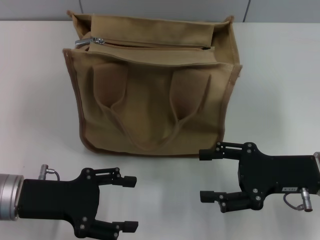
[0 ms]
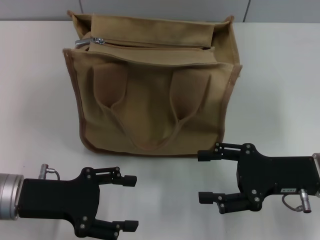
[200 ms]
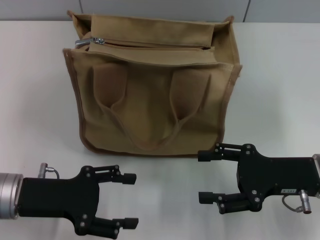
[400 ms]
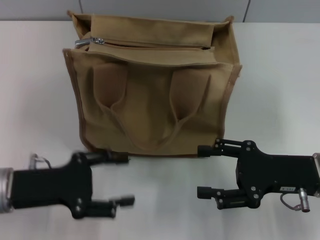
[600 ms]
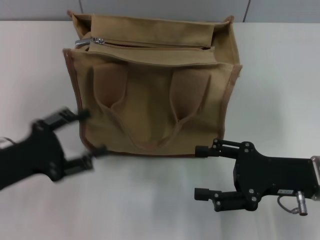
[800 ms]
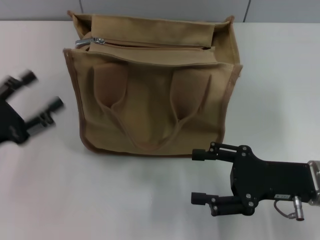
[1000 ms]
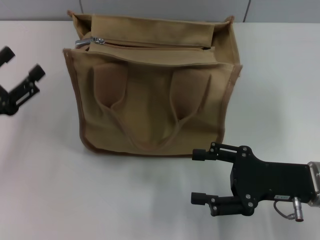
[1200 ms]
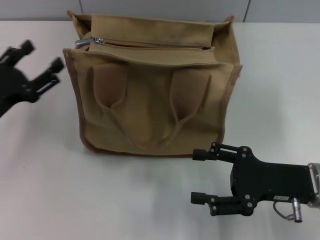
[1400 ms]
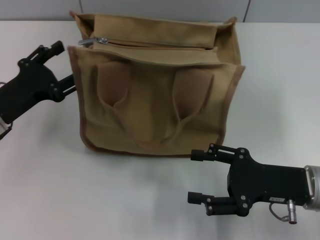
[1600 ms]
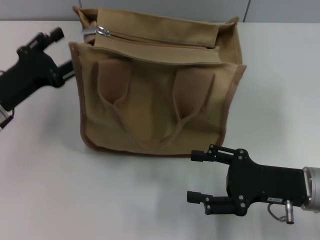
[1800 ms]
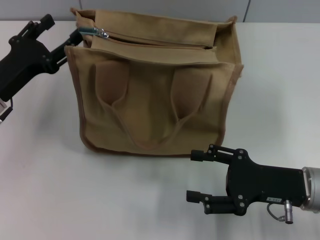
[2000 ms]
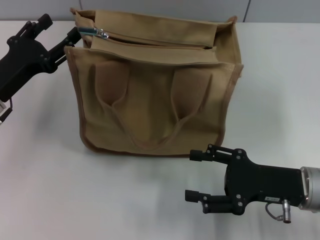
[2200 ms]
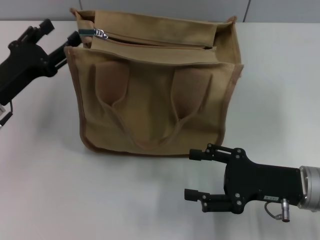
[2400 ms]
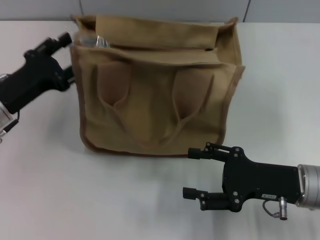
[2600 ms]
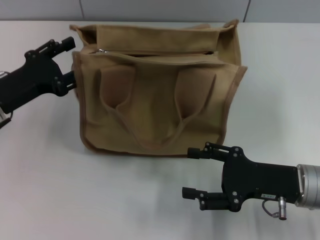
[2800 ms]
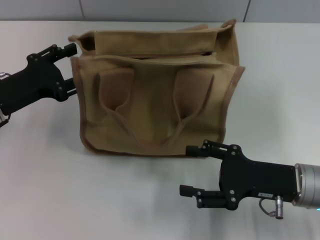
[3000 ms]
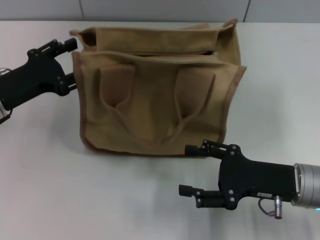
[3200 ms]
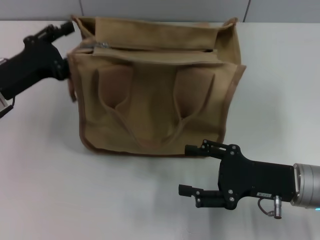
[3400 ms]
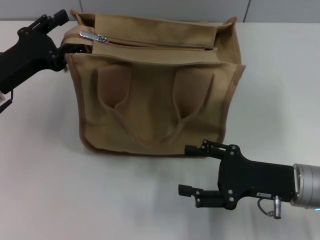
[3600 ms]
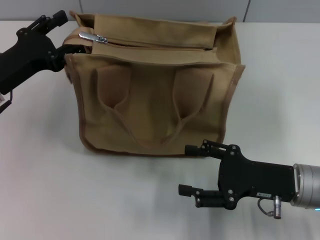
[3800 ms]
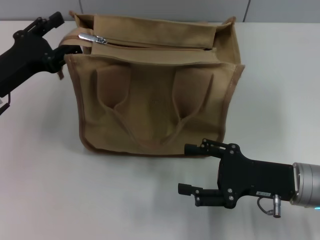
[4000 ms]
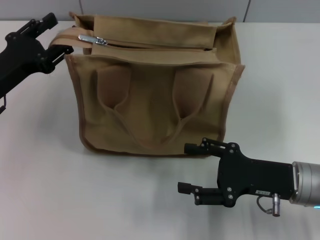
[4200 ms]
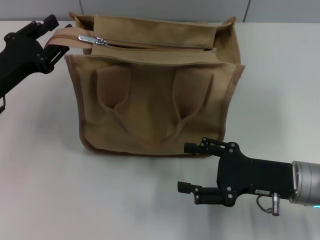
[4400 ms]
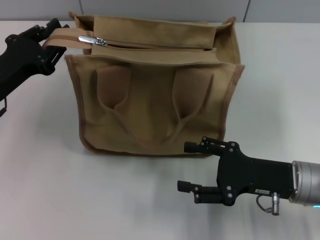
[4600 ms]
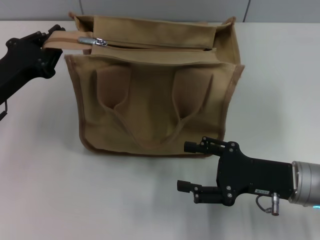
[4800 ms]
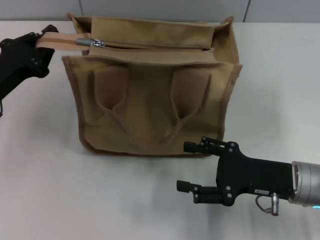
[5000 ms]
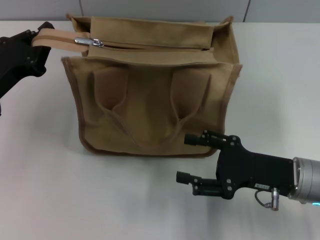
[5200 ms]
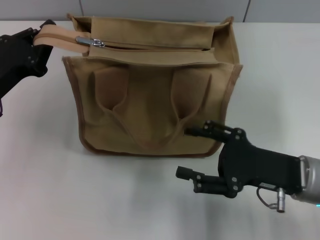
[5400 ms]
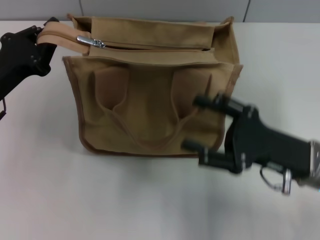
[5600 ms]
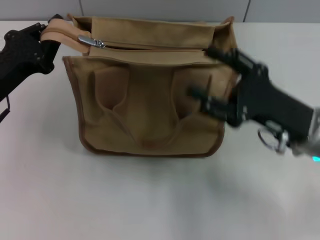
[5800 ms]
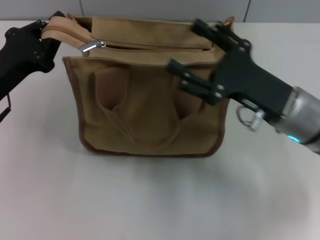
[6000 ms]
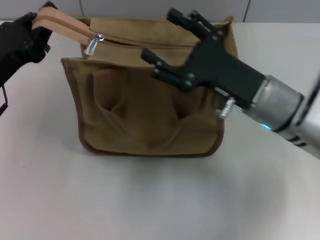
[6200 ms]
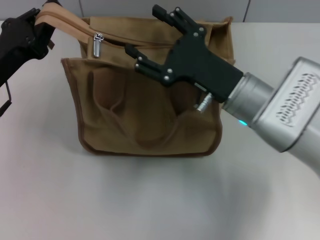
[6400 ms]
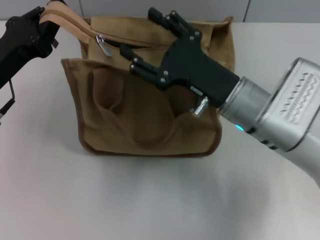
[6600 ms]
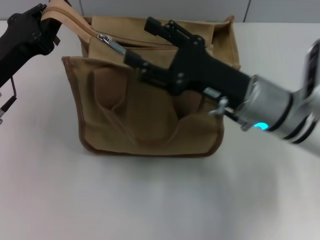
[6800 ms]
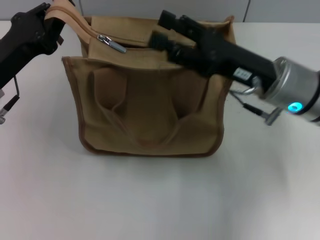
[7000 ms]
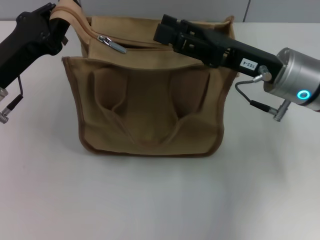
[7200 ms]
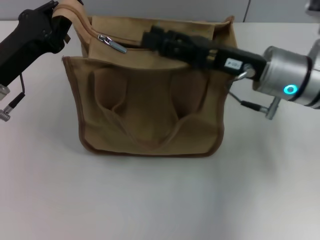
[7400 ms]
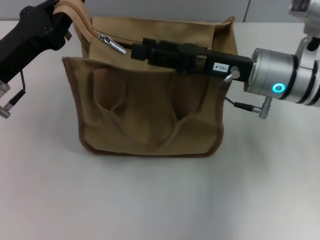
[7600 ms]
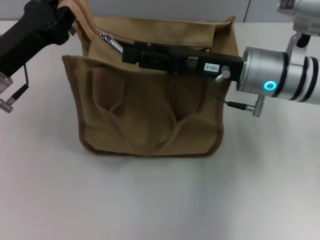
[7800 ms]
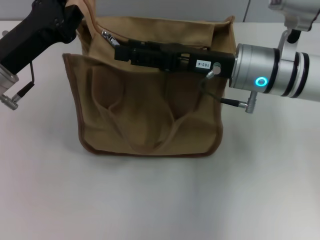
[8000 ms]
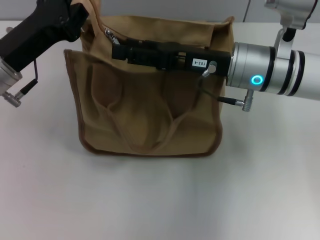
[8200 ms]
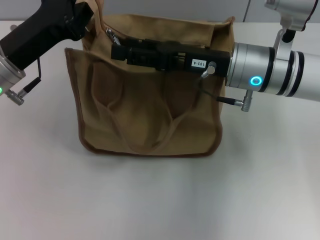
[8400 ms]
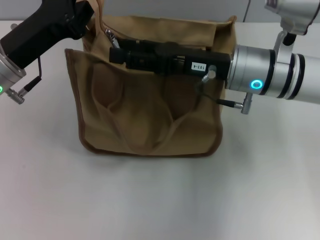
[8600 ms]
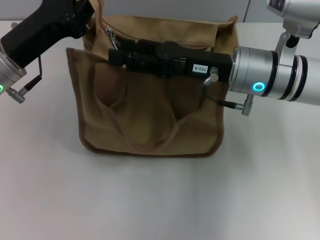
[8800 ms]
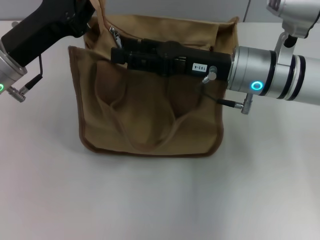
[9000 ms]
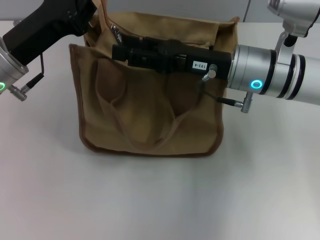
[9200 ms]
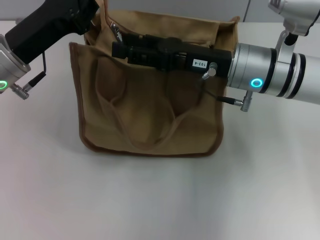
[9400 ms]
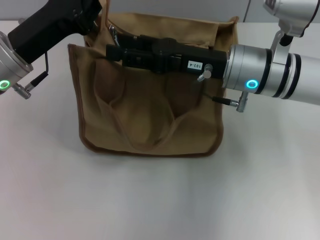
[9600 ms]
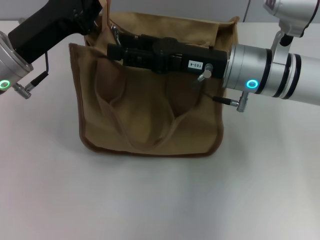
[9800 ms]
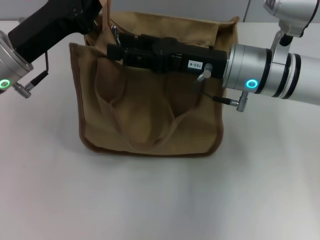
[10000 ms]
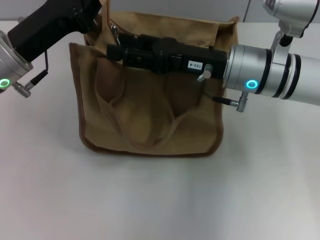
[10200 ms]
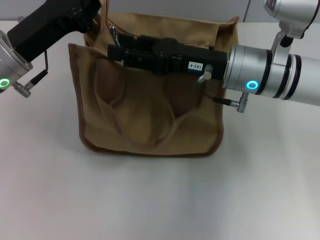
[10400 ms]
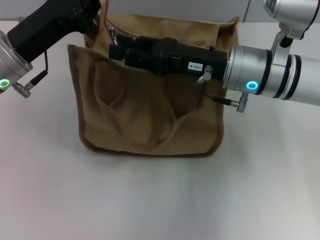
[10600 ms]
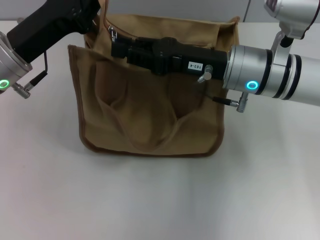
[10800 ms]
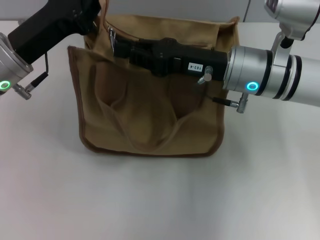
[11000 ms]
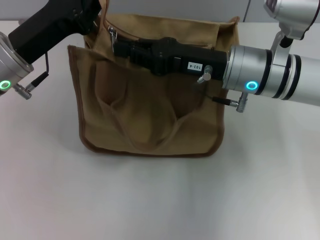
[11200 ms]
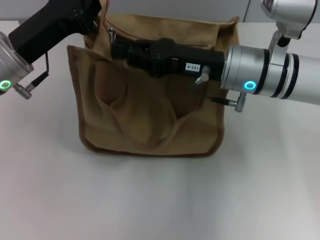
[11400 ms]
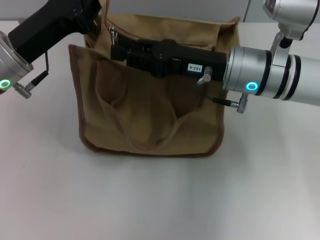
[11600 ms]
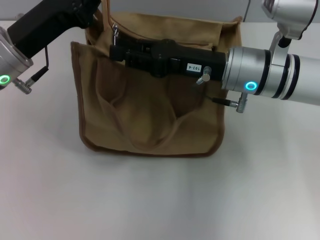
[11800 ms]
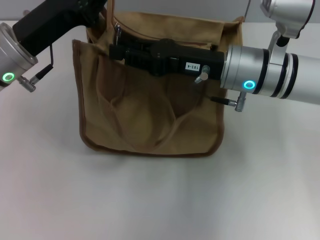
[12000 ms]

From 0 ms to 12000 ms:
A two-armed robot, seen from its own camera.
From 0 ms to 1600 ms: The left gripper shifts approximately 5 cm forward.
From 1600 ms to 4400 ms: There are only small adjustments of the grippers.
From 4400 ms to 6000 ms: The left gripper closes, while the right gripper shifts roughly 5 cm upward.
From 6000 ms to 7600 ms: The right gripper heads forward, covering some 5 cm.
From 7600 ms to 9000 ms: The grippers stay close to where they were, moving slightly.
From 9000 ms to 10400 ms: The two grippers keep their place.
From 10400 ms to 12000 ms: The right gripper closes.

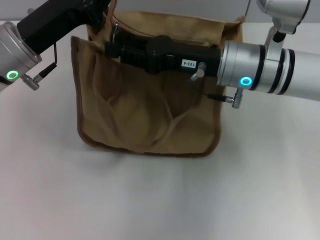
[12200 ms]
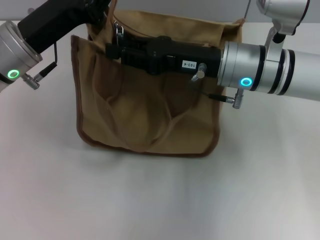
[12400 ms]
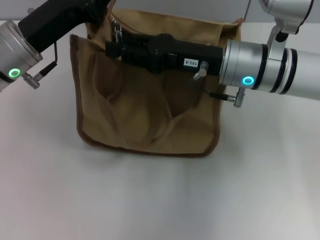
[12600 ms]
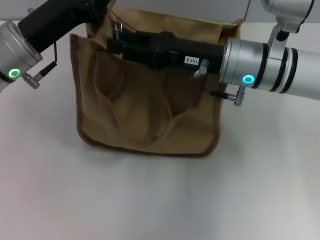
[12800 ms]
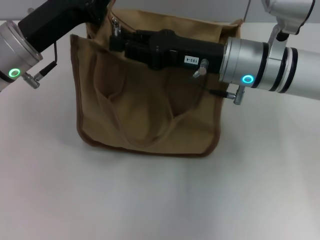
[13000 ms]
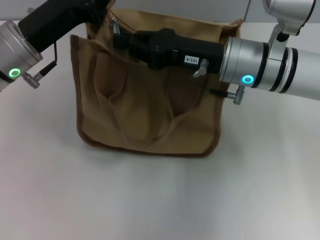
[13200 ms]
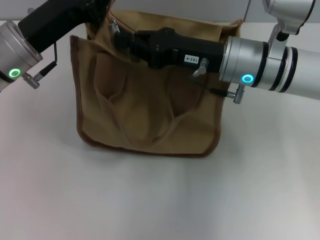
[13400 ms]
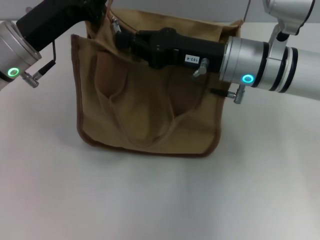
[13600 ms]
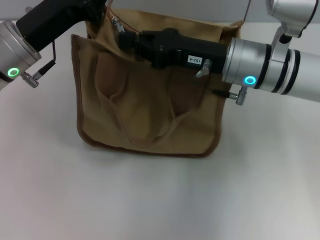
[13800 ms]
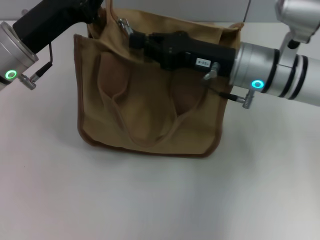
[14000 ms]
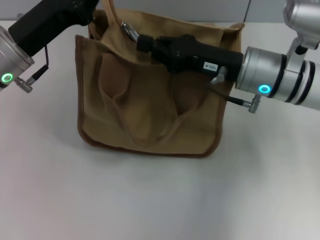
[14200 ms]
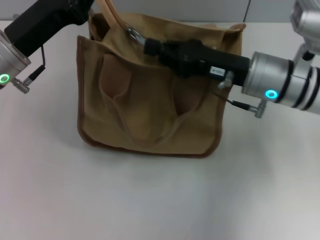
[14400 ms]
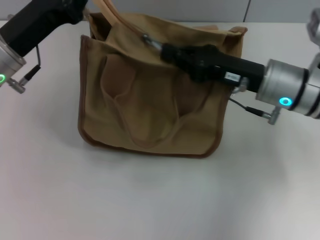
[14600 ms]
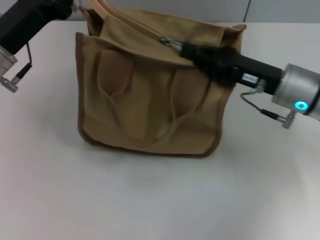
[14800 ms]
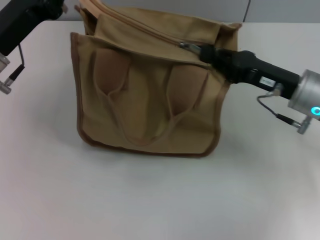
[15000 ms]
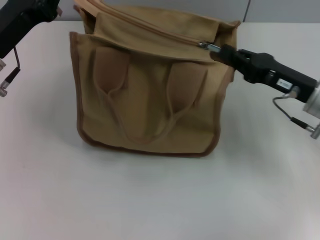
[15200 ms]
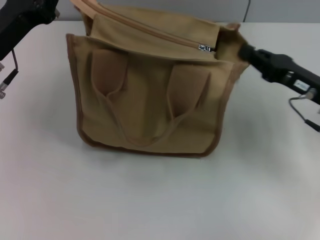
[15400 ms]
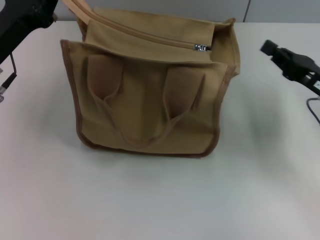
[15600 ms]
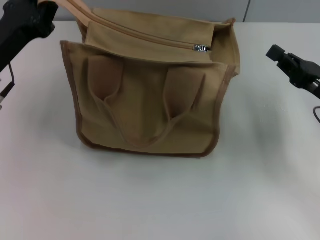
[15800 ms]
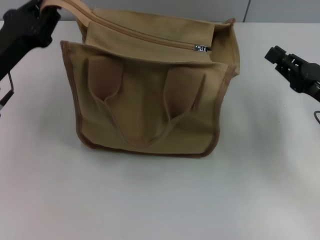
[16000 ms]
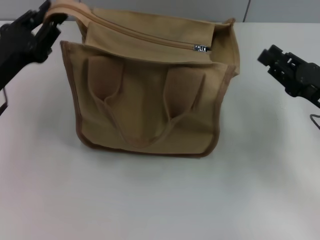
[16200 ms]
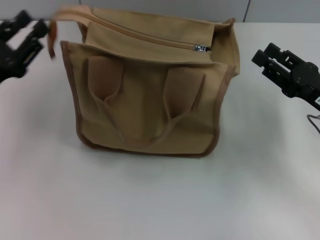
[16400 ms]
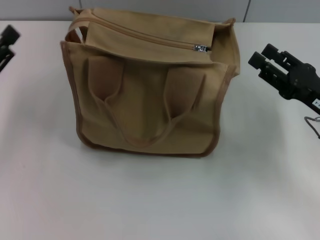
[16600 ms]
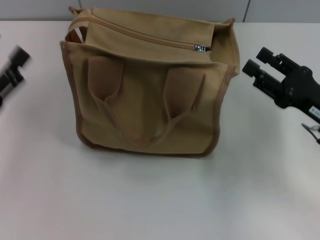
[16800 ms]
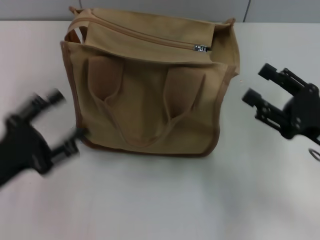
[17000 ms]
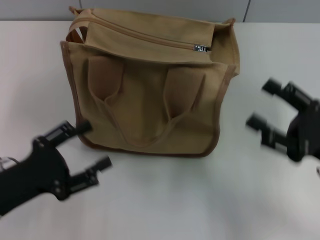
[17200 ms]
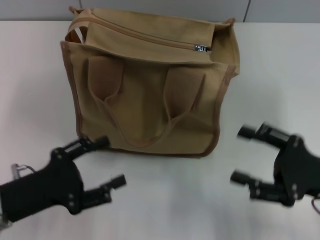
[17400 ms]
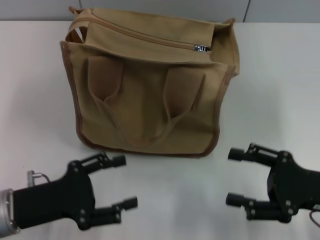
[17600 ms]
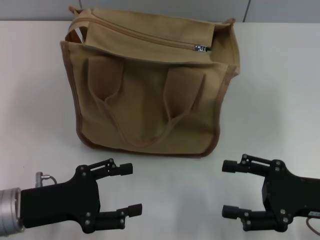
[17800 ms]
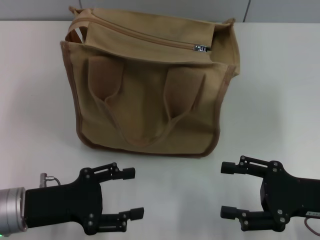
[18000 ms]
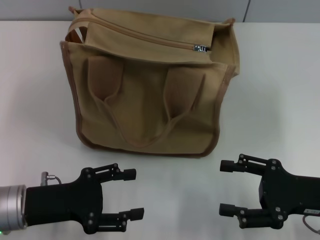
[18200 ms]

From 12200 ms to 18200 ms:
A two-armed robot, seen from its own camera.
Step, from 12200 ms to 15000 ms: Pull up the zipper with your right hand.
Step, from 15400 ms to 16200 ms: Grab the zipper with your left hand.
From 12200 ms to 13800 ms: The right gripper closes its fingers.
From 13800 ms to 15200 ms: The right gripper heads to the right, covering approximately 10 cm.
From 15200 ms to 16600 ms: The left gripper travels backward and to the left by approximately 10 cm, and opens, while the right gripper shifts by some 5 cm, and opens its fingers.
From 16600 ms to 18200 ms: The left gripper travels to the right and downward by some 10 cm. Meanwhile the right gripper travels backward by approximately 5 cm.

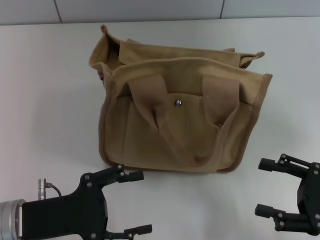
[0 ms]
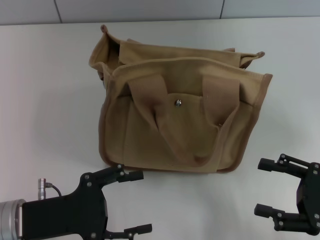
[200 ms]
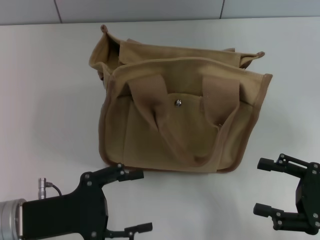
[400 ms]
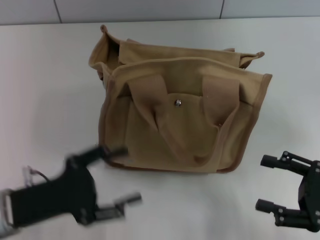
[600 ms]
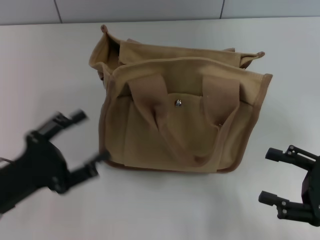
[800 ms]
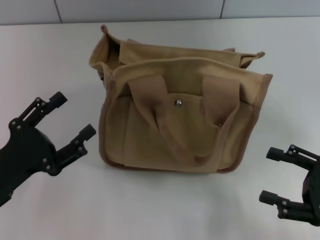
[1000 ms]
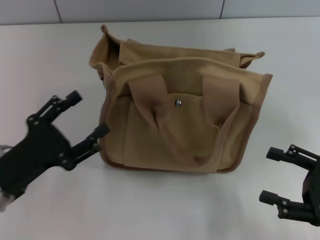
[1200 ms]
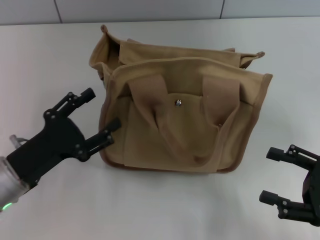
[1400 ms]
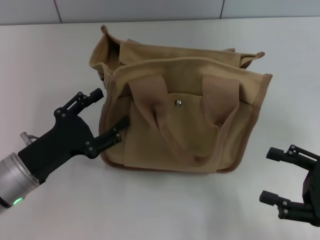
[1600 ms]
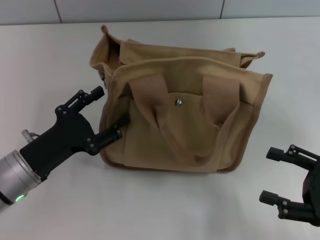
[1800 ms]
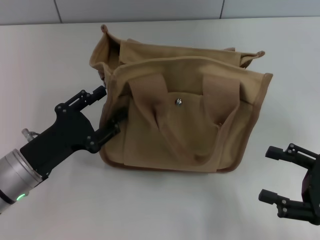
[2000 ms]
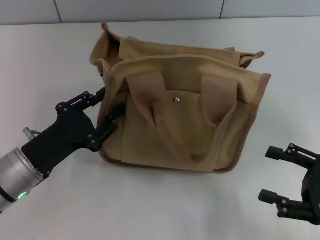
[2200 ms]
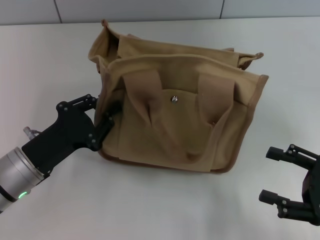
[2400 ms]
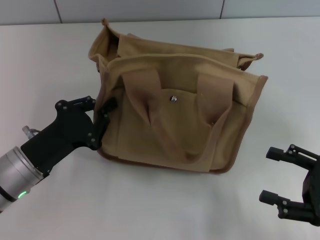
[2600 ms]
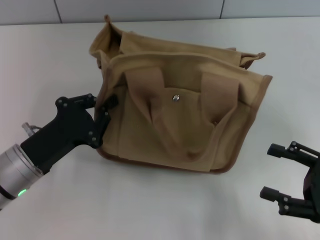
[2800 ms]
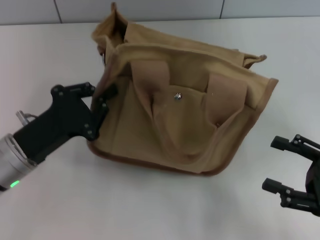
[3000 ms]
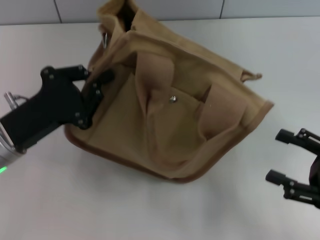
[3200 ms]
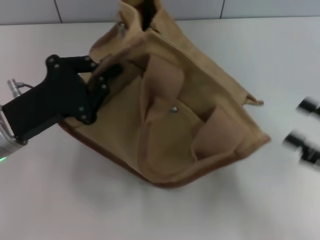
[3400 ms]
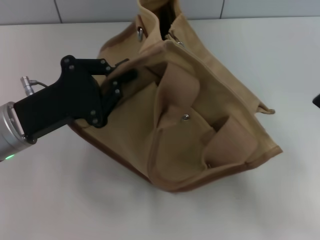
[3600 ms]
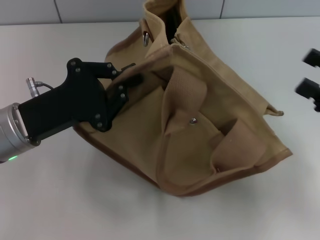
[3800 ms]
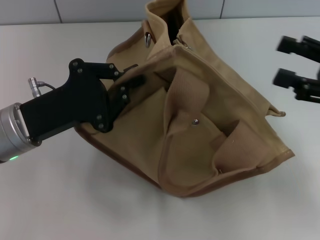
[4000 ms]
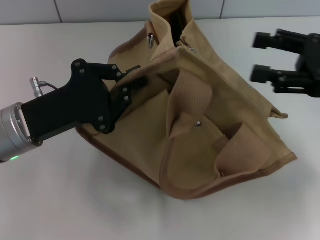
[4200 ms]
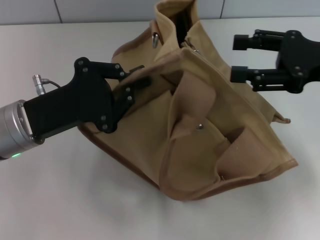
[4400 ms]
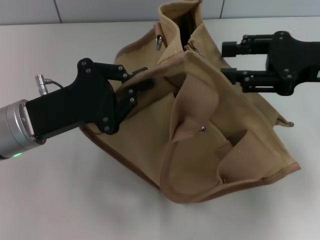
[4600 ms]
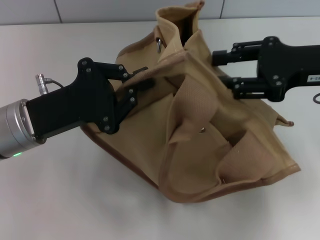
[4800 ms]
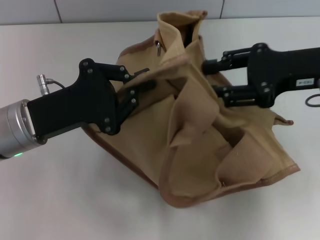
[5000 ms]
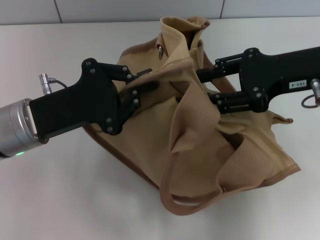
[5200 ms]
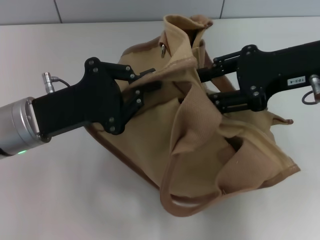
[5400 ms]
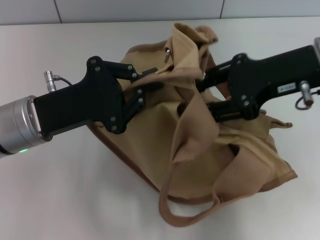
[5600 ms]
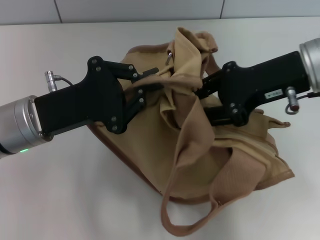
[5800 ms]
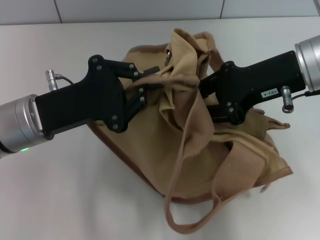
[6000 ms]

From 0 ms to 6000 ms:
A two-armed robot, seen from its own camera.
From 1600 ms to 3000 ms: The left gripper closes.
From 3000 ms to 4400 ms: The left gripper is displaced upward by about 5 cm, while the right gripper shifts some 20 cm forward and upward.
From 4400 ms to 6000 ms: The right gripper heads to the left, covering about 10 cm.
